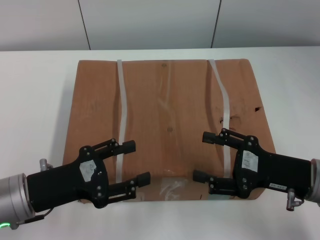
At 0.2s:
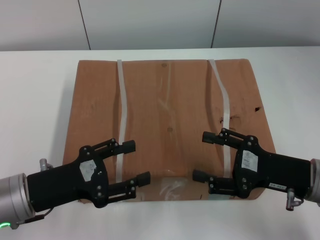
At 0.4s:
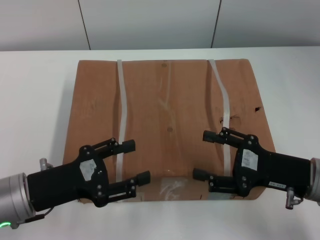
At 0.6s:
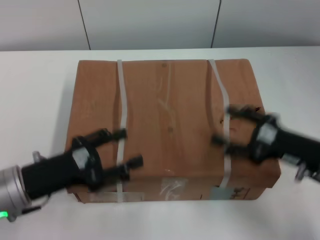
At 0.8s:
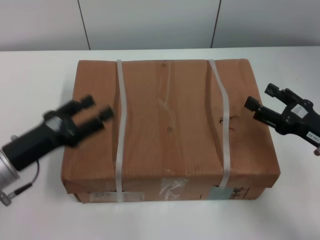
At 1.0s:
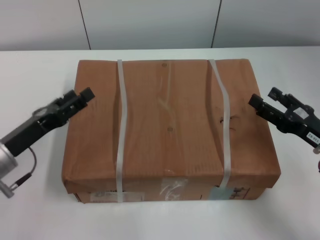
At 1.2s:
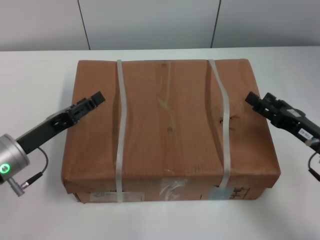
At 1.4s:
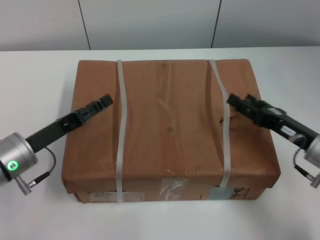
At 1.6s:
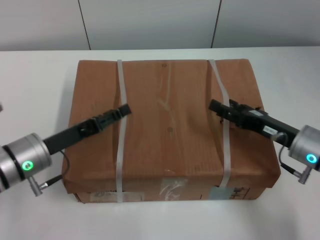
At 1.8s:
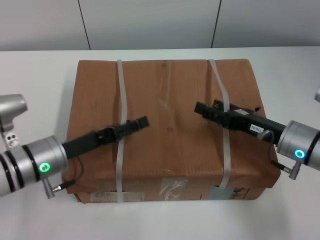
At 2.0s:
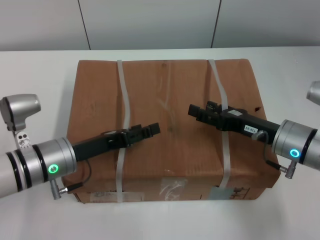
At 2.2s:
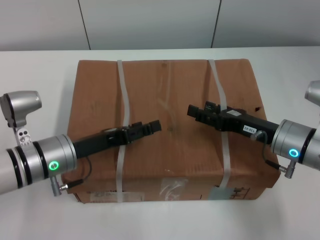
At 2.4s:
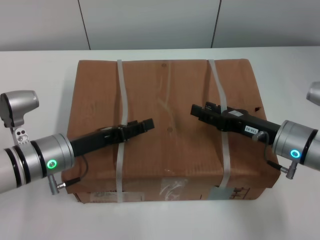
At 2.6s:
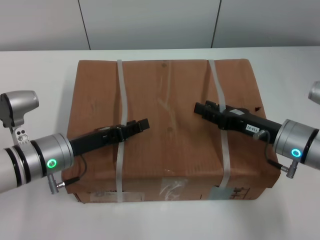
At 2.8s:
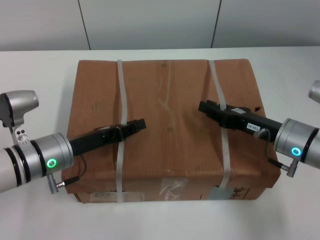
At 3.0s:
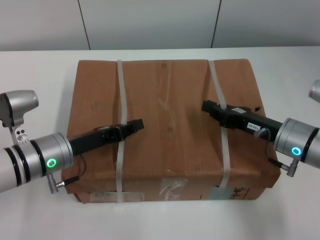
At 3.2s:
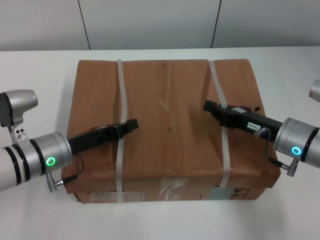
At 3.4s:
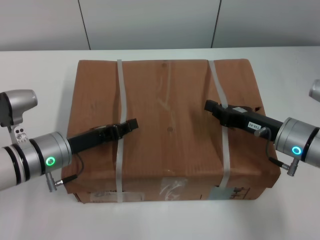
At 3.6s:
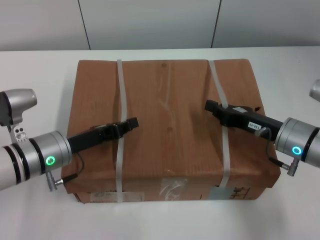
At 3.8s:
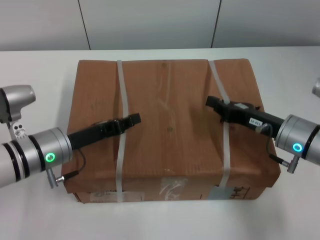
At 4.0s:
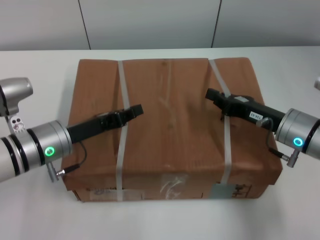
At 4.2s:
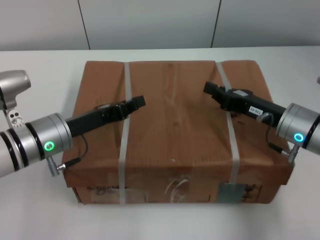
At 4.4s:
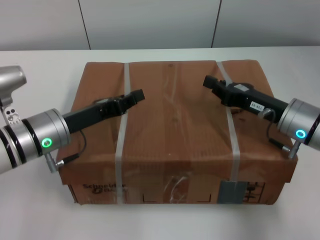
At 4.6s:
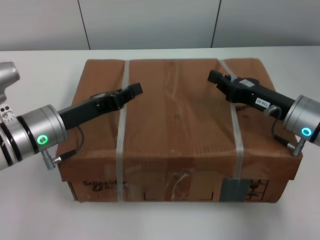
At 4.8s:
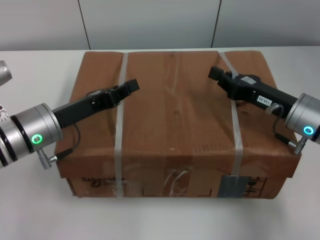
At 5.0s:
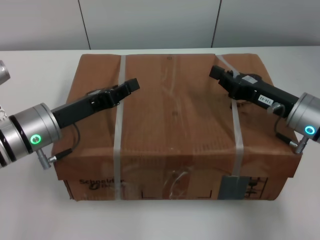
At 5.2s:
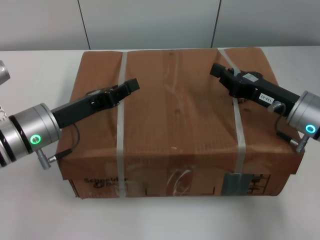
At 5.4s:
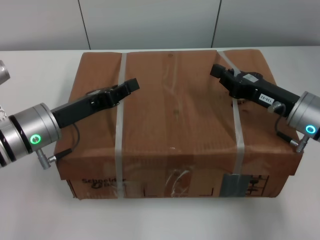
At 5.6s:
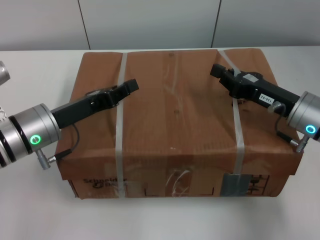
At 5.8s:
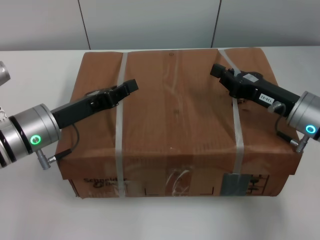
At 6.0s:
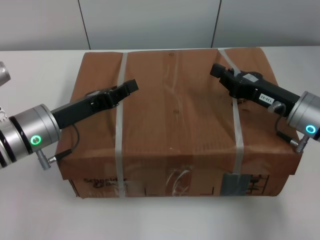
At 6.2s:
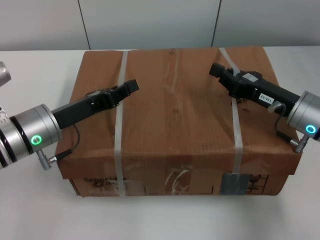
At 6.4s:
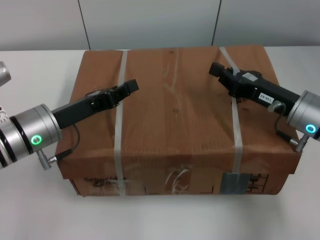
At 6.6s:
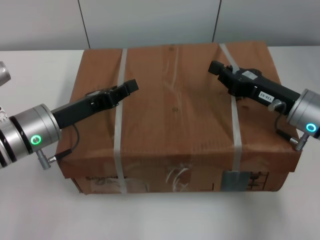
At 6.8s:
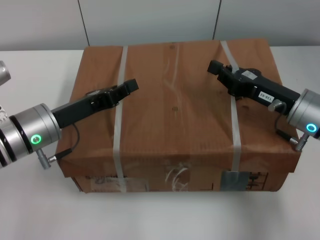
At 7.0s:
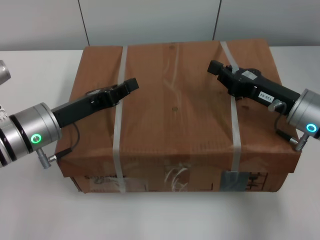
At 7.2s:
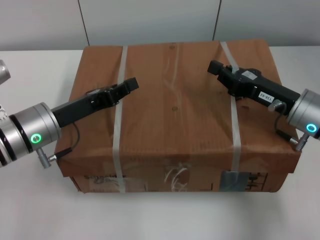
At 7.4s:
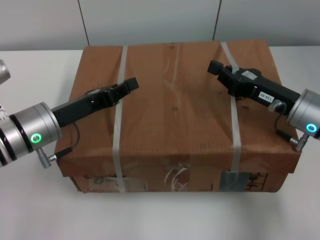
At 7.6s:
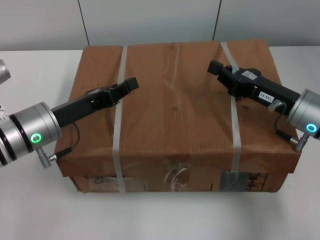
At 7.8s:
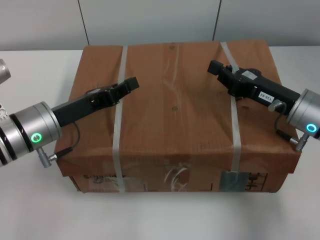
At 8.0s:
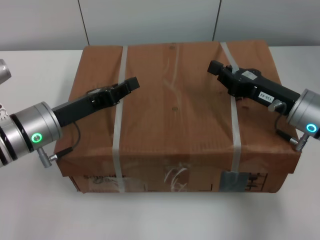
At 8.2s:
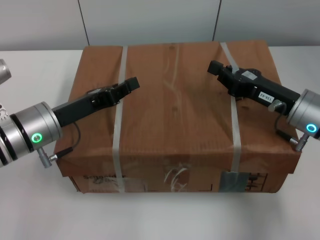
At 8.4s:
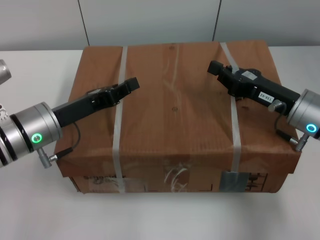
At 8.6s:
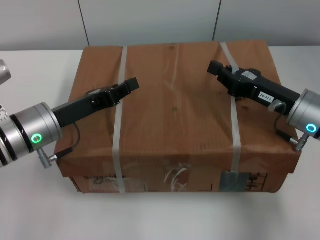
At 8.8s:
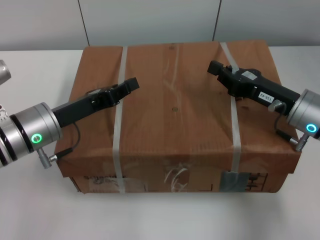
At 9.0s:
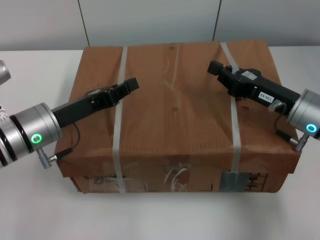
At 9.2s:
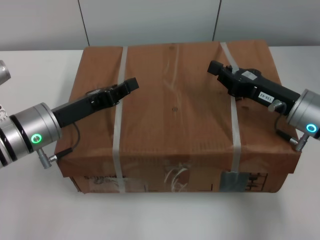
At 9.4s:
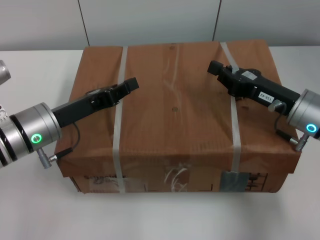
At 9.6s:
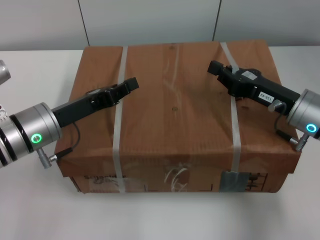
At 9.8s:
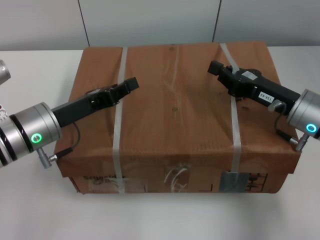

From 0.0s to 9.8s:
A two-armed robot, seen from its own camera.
Task of the whole recording: pick up the box from the table with both arms.
Step, from 0.0s to 3.2s: Grasp the bandage with left gripper.
Step, from 0.0s to 3.2s: Grasp the bandage with right gripper.
Step, from 3.4s to 4.8s: Lift the box with left gripper.
Step, from 3.4s to 4.8s: Lift the box with right gripper.
From 0.0s to 1.4s: The left gripper moves forward, about 5 cm. The right gripper shifts by approximately 5 cm.
From 1.4s to 2.8s: The right gripper closes up.
From 2.8s to 4.2s: The right gripper closes; the left gripper closes its fingers.
From 5.6s to 9.8s: Both grippers stay about where they are.
